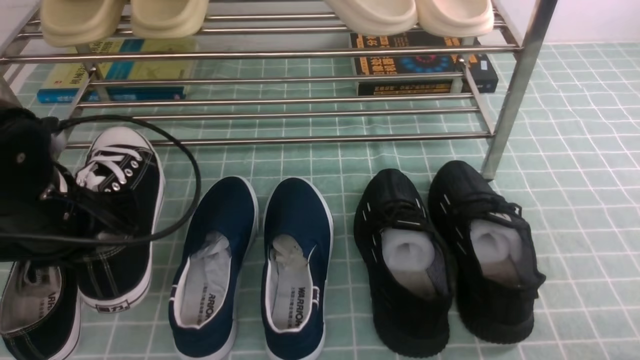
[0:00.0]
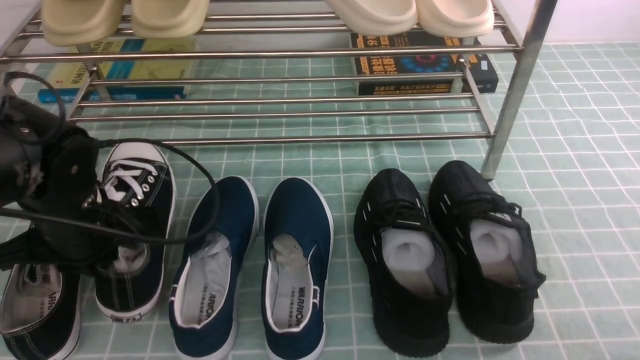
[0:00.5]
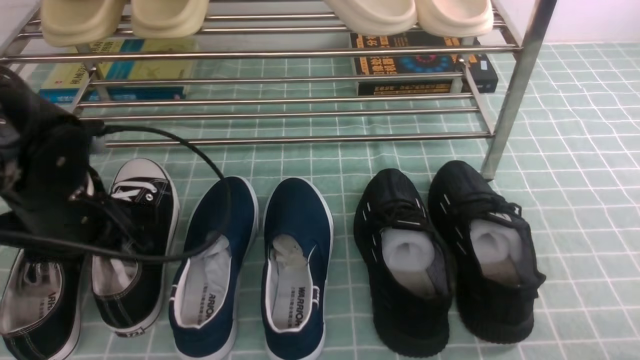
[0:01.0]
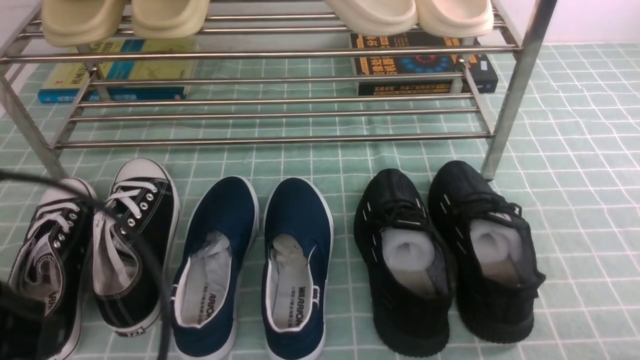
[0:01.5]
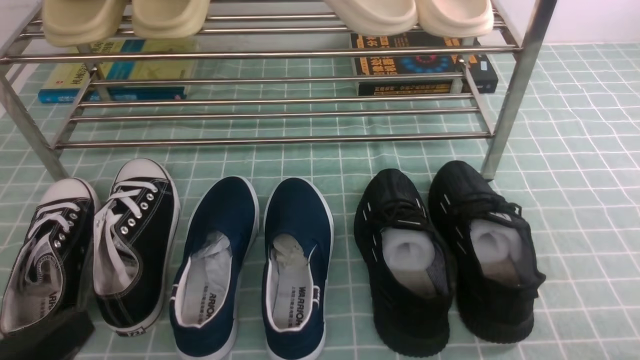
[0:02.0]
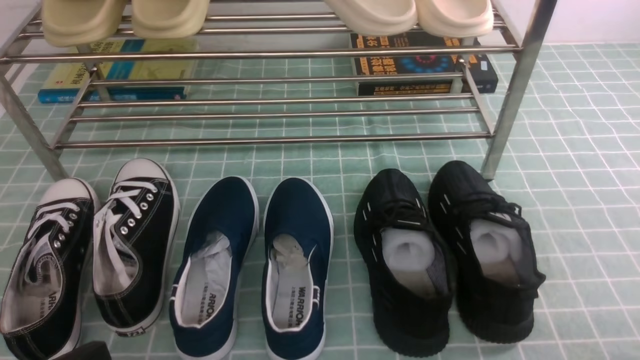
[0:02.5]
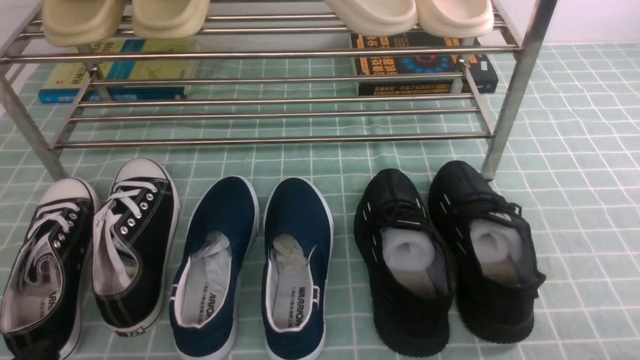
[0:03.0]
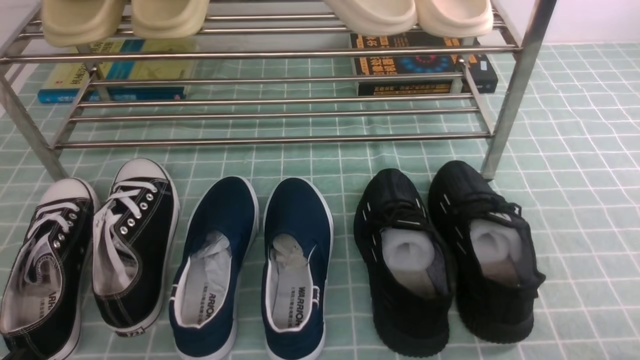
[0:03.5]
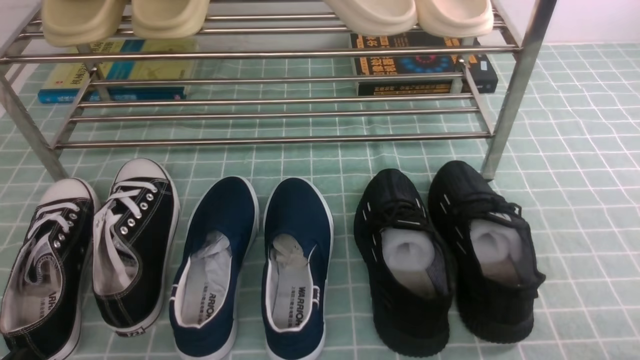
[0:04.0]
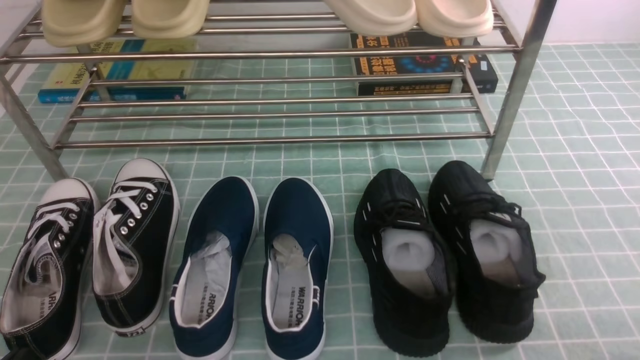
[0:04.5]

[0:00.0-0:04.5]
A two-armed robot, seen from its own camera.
0:00.0 to 0:02.0: The left gripper goes approximately 20 cm backward, and opens, then closes again.
0:02.0 to 0:04.5: The left gripper is displaced downward by roughly 10 cm.

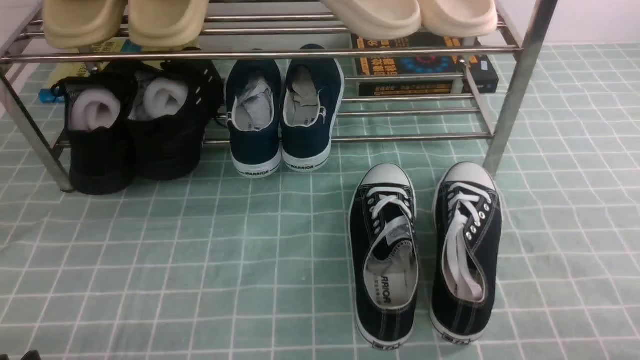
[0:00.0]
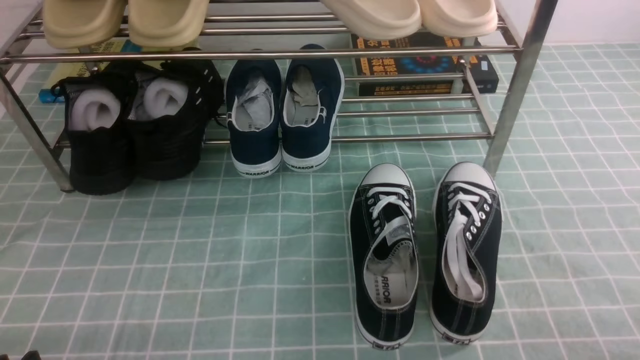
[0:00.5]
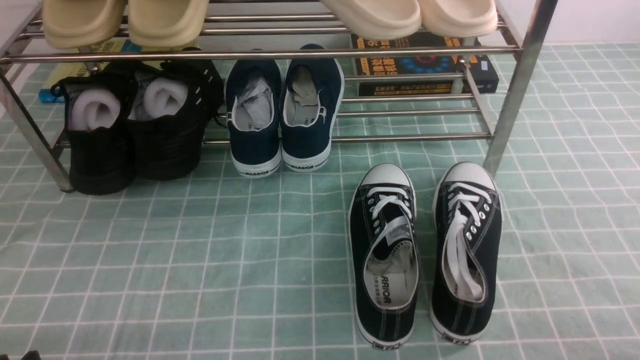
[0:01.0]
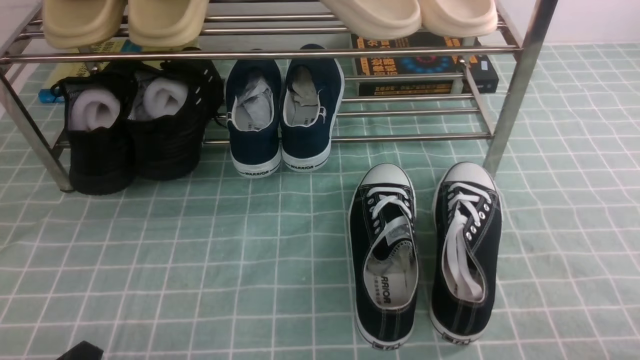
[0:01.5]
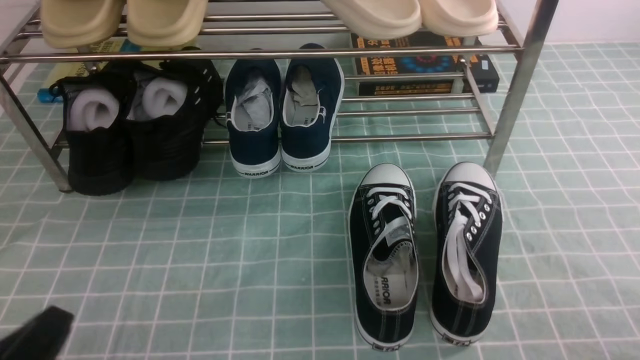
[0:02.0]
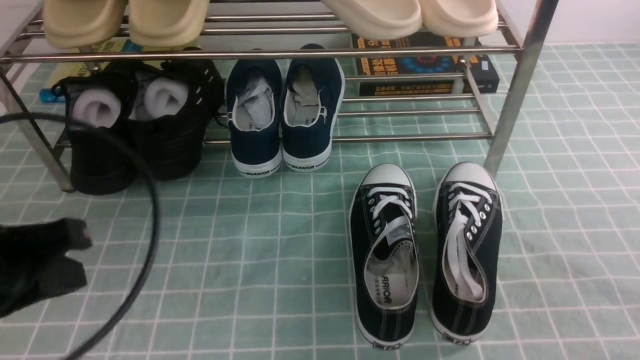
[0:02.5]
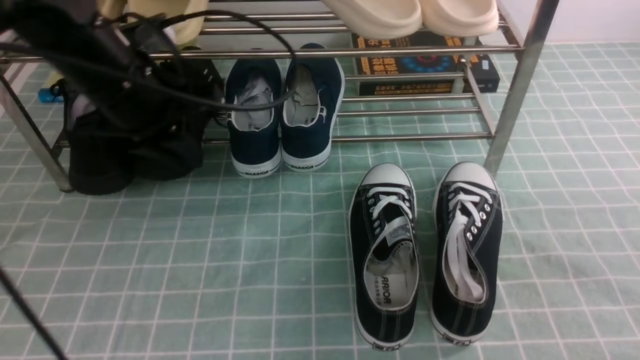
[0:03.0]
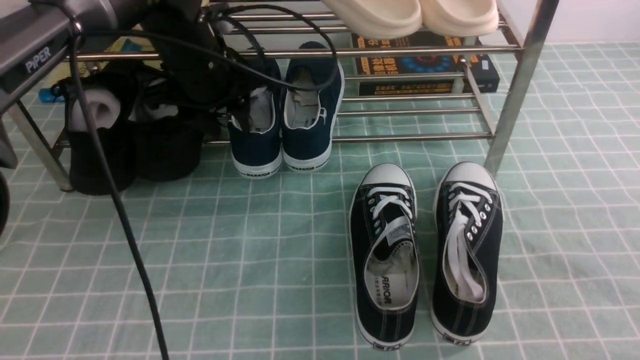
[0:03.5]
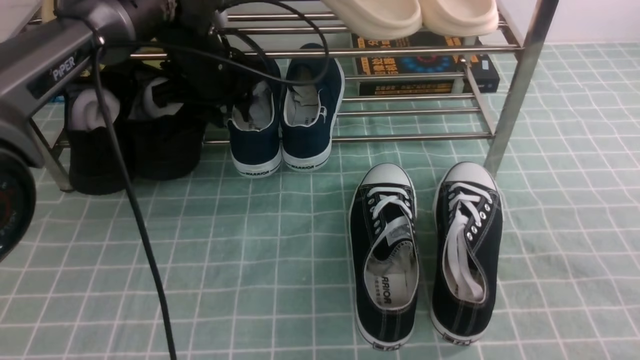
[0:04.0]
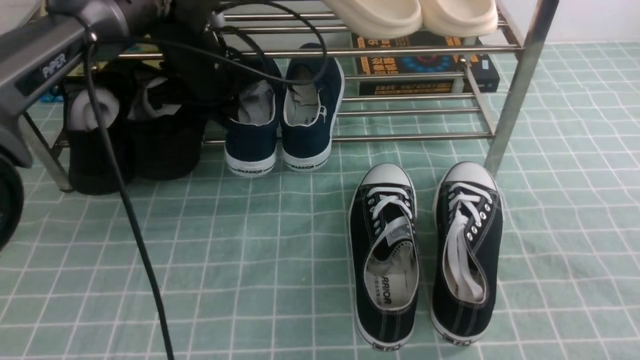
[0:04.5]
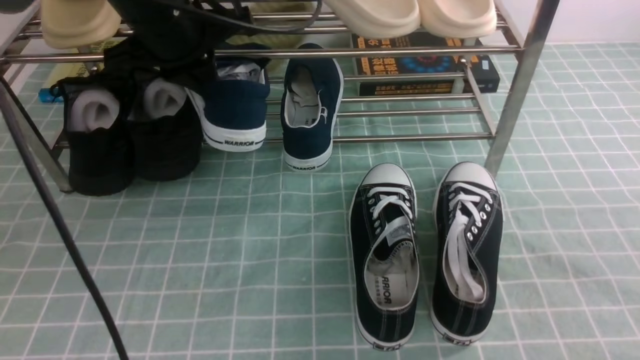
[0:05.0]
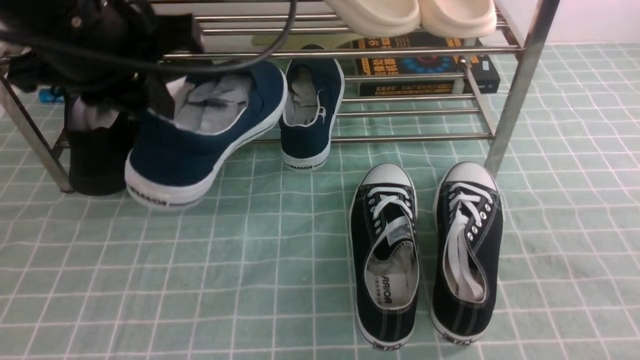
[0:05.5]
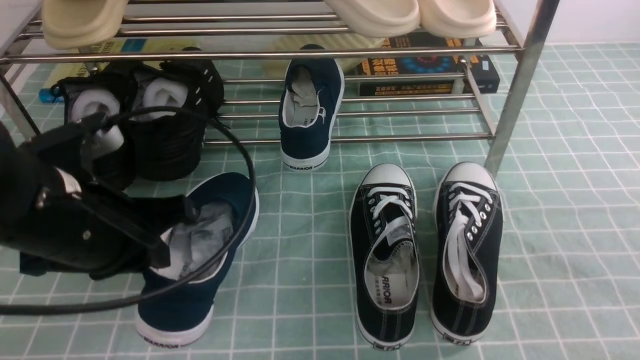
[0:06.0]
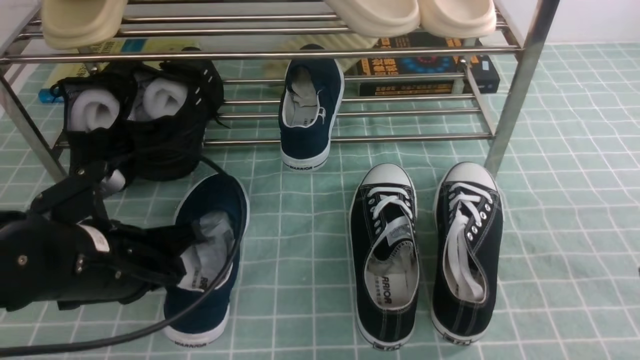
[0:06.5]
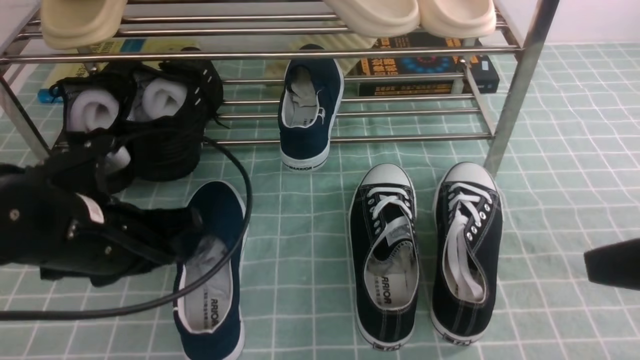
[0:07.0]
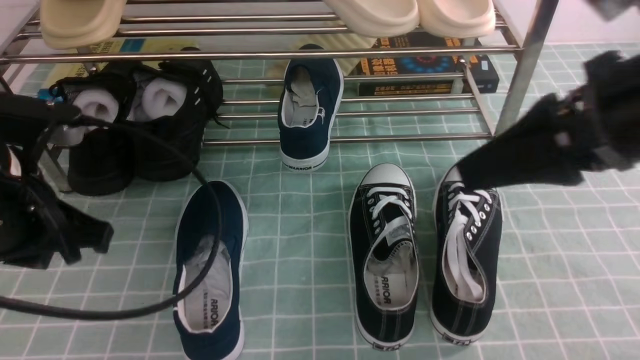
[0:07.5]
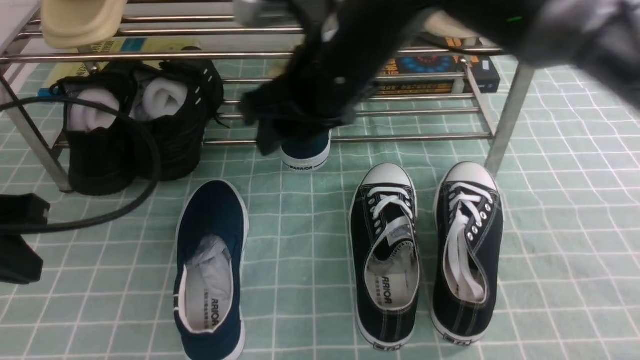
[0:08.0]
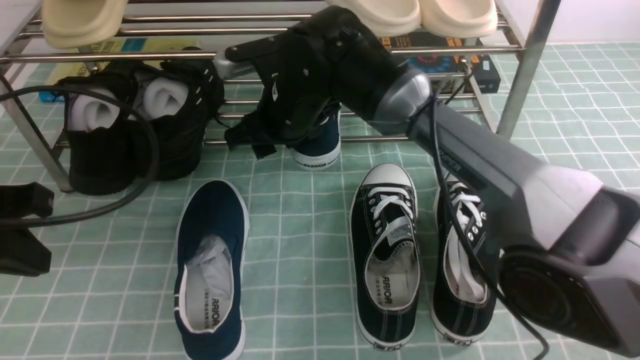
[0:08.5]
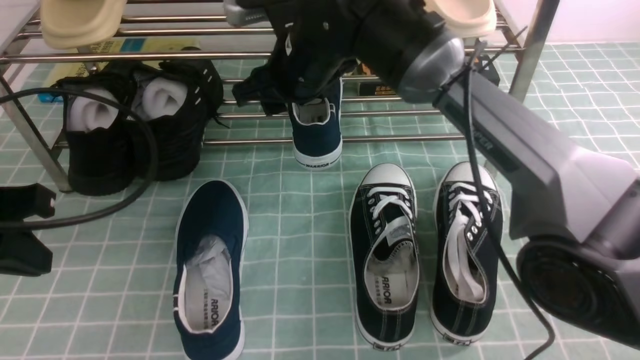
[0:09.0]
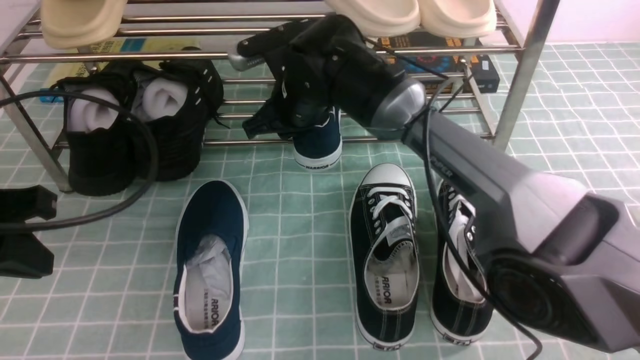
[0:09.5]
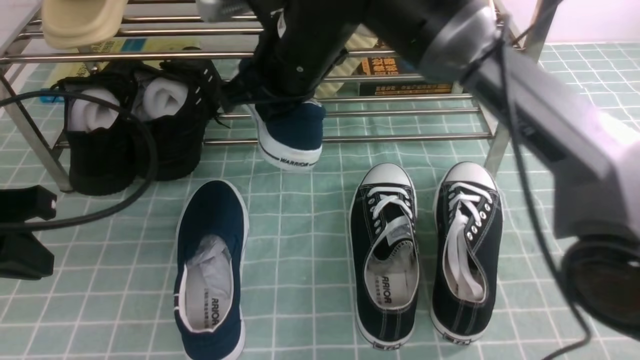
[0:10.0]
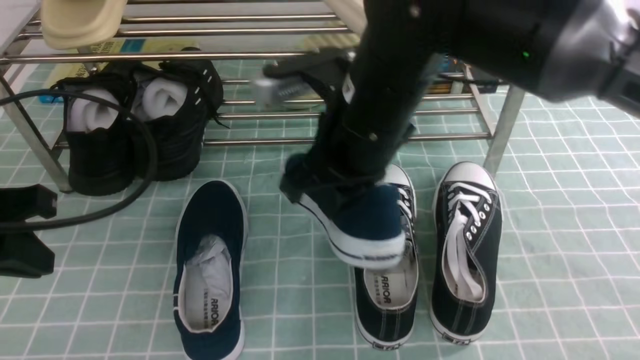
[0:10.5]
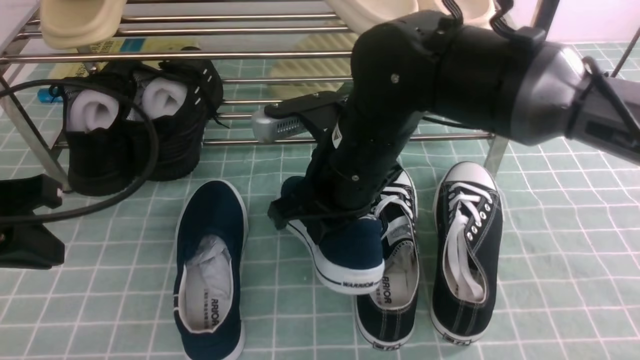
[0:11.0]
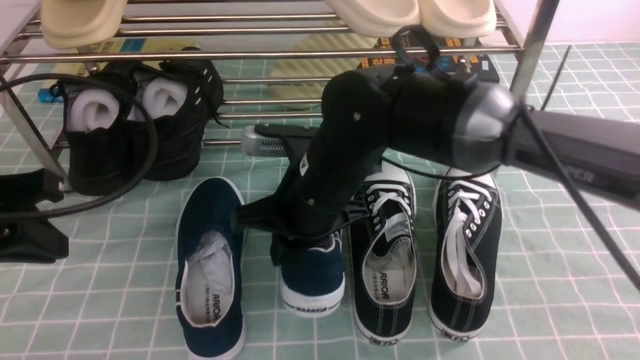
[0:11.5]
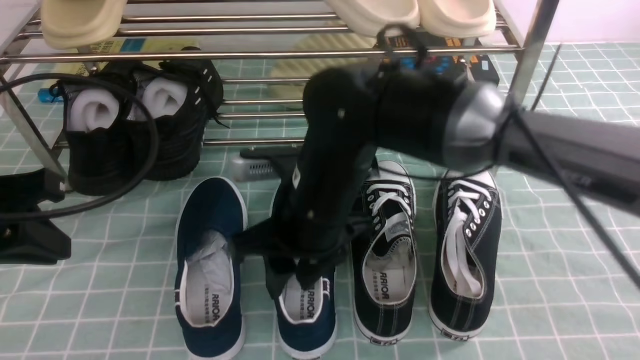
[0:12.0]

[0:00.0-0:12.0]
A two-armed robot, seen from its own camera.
Step, 0:00.0 to 0:04.0: use the left arm to clamp a shoe in the middle of the shoe rack.
Step, 0:04.5 to 0:06.5: Use your left arm to remove the clamped shoe from the shoe rack and put it down.
Step, 0:07.0 to 0:09.5: use the right arm to clamp a shoe in the middle of the shoe rack.
0:00.0 to 0:02.0: The left gripper shifts some 5 cm upward.
0:02.0 to 0:04.0: The right gripper is displaced upward and forward by about 15 cm; the left gripper shifts approximately 40 cm forward, and opens up.
0:04.0 to 0:06.0: The left gripper shifts roughly 25 cm backward, and closes.
0:06.0 to 0:08.0: The left gripper heads to the left, covering approximately 10 cm, and opens and closes again. The right gripper travels to the left and forward by roughly 35 cm, and opens up.
0:08.0 to 0:10.0: The right gripper moves roughly 10 cm downward and comes back, and closes its fingers.
0:10.0 to 0:12.0: The right gripper shifts approximately 10 cm backward and downward, and opens up.

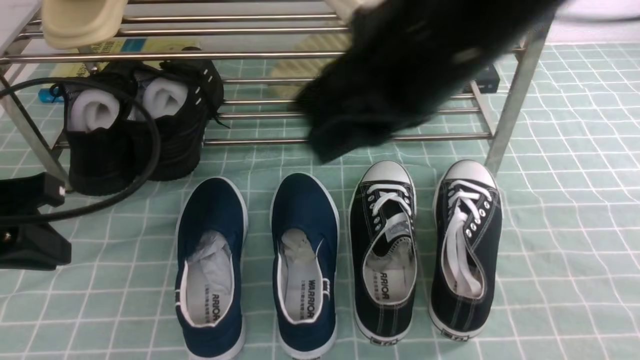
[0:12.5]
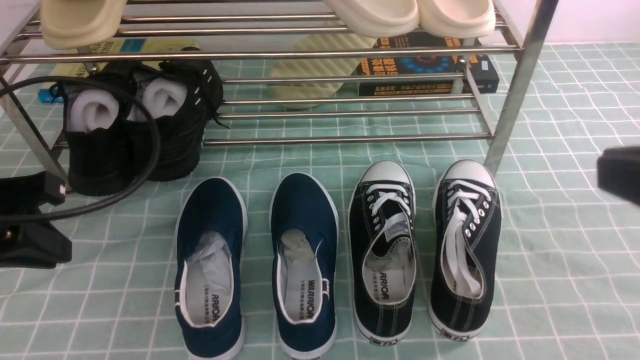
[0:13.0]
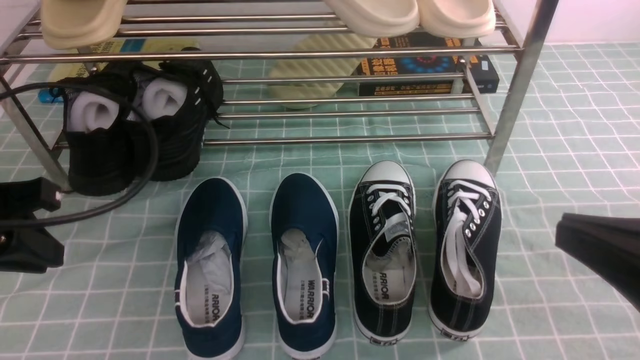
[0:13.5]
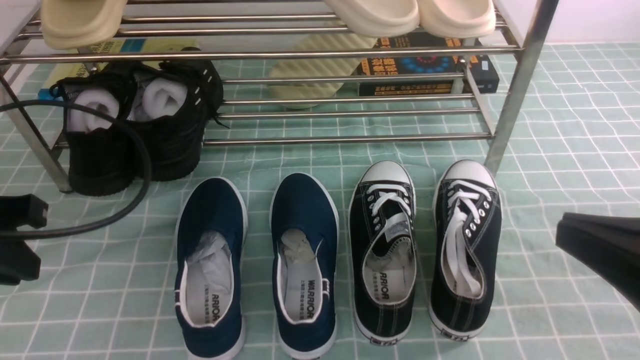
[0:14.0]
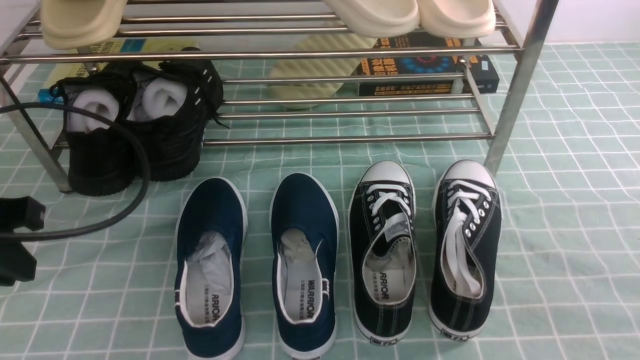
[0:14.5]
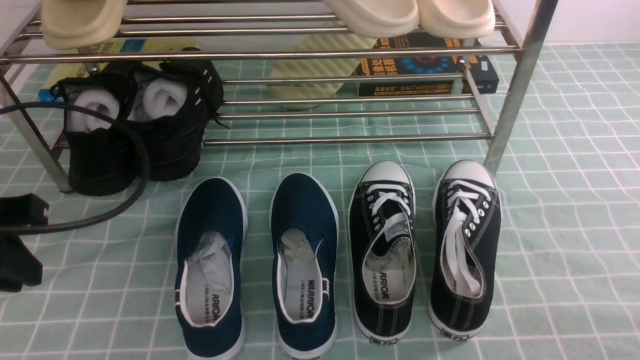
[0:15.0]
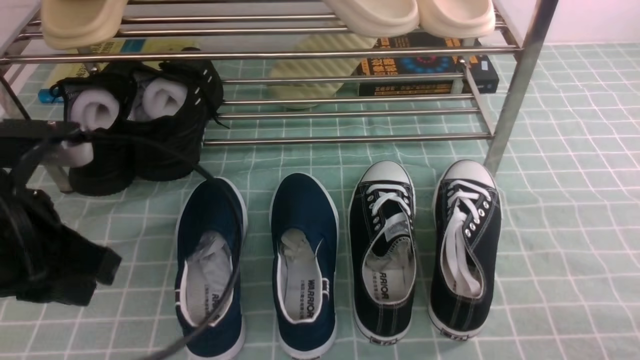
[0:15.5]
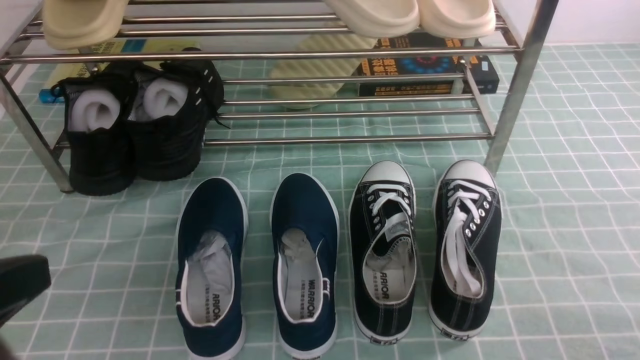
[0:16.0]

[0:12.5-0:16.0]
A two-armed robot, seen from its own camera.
0:12.5 to 0:14.5: The right gripper shifts about 30 cm to the right, downward and backward.
0:14.5 to 0:16.0: The left gripper goes about 15 cm backward and to the right, and closes up.
